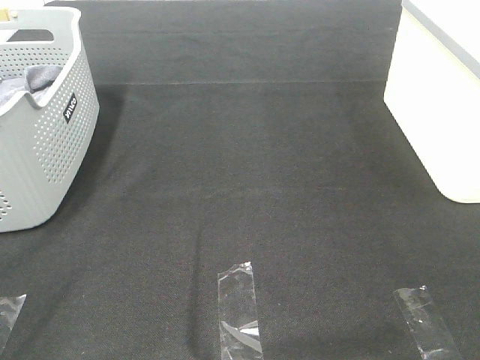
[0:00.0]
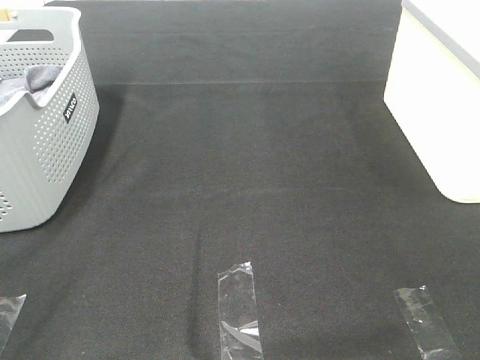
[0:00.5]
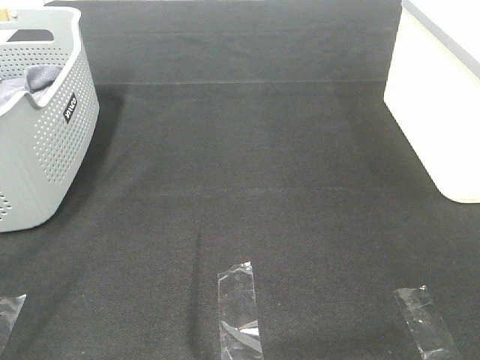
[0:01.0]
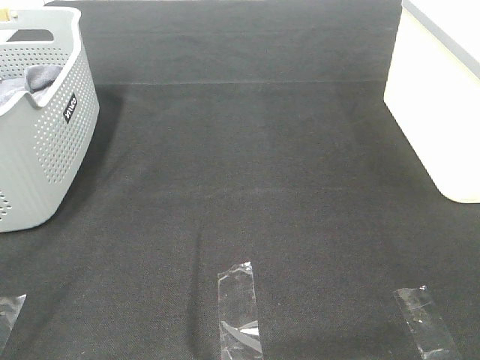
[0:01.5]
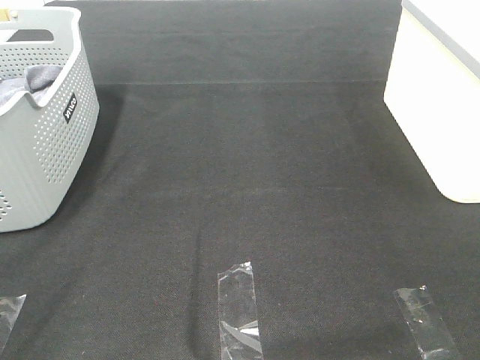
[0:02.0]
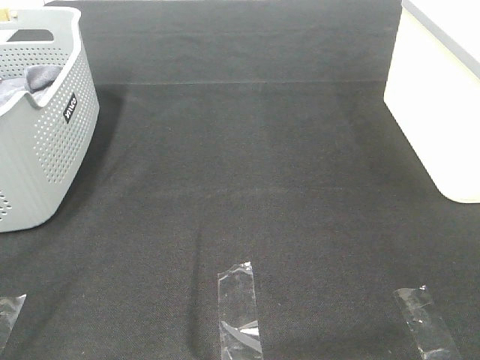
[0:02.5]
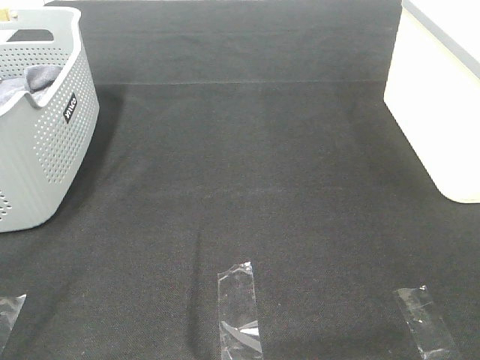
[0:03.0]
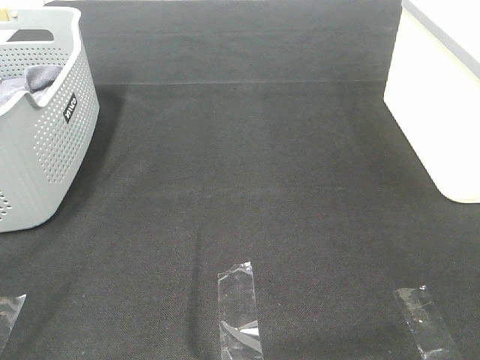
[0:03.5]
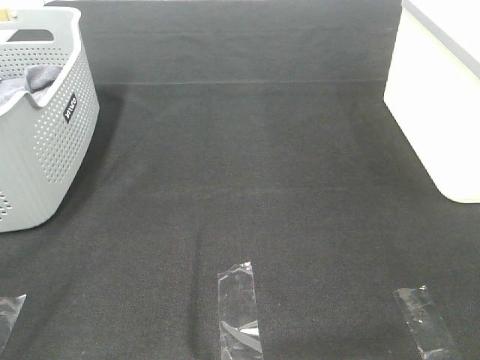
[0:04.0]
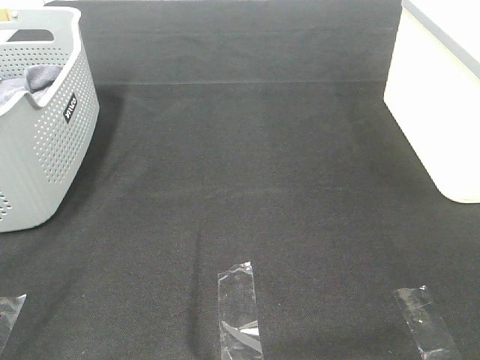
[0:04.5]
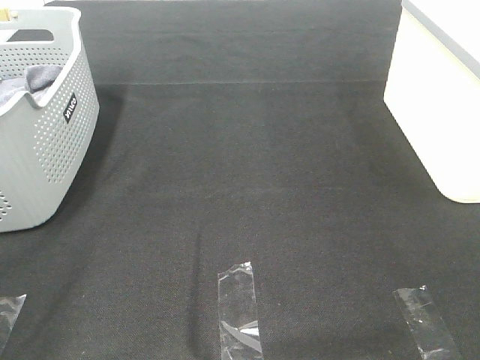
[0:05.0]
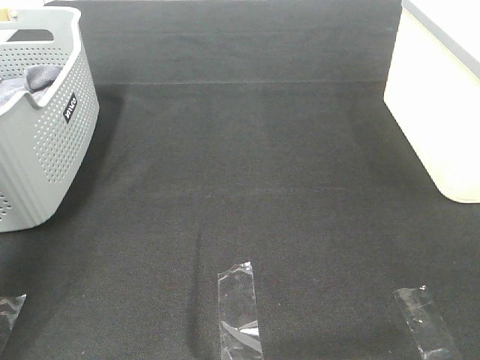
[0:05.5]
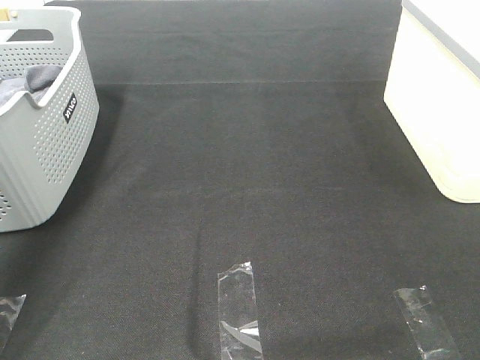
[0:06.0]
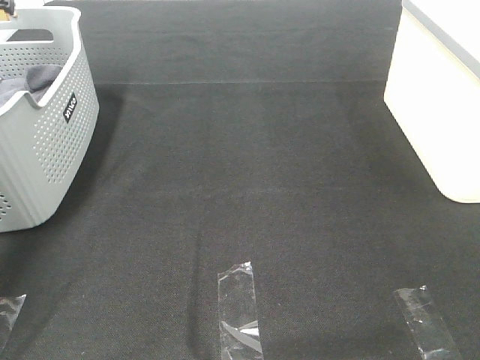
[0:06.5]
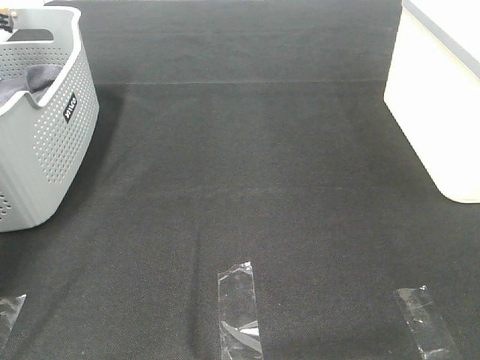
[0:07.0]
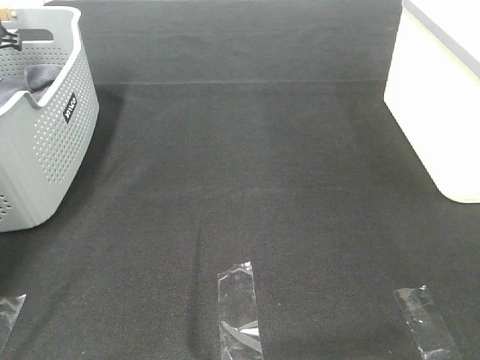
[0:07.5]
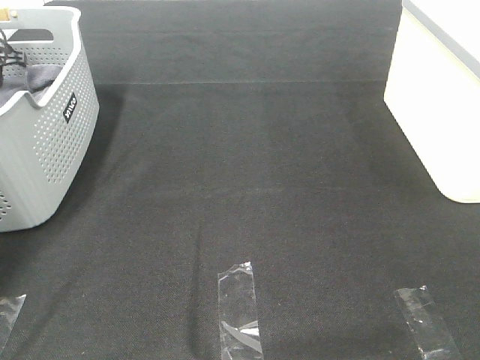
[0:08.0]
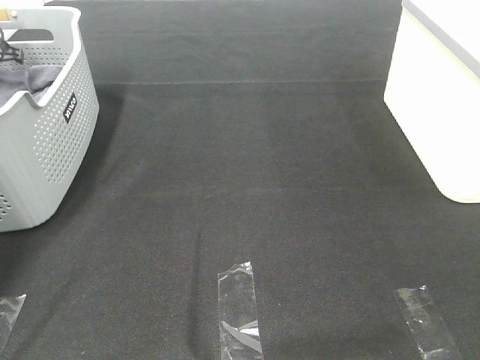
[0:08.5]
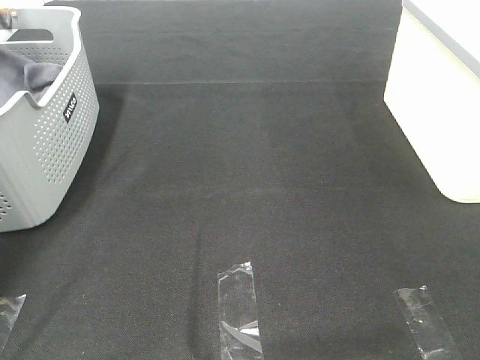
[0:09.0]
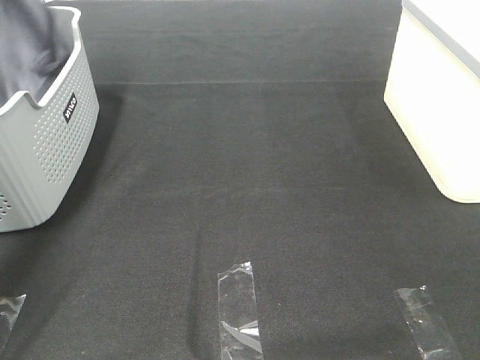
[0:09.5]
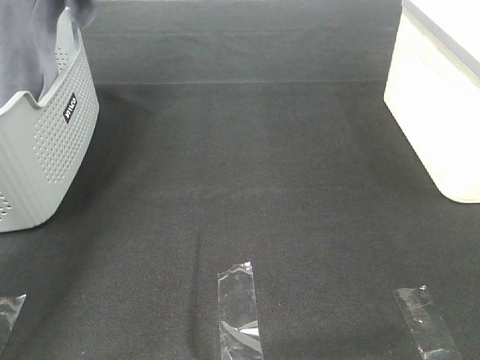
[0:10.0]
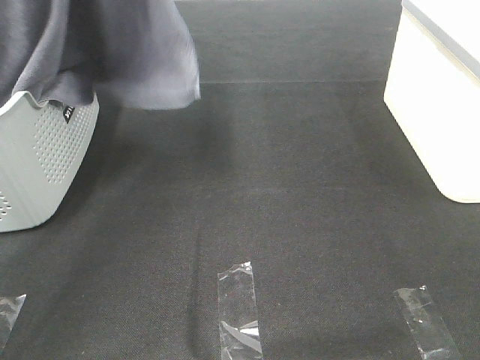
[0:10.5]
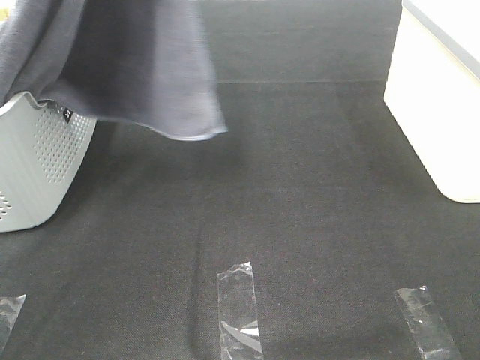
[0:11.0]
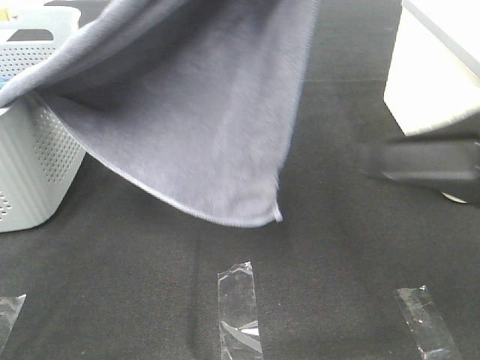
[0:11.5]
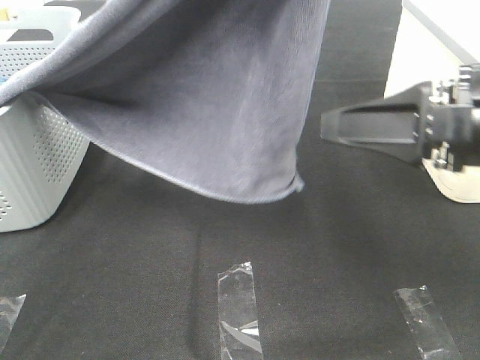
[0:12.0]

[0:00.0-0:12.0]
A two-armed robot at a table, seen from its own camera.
Task of the whole recording: Remove the towel and place it.
0:00.0 to 0:04.0: The two grippers keep their place.
0:04.0 to 0:06.0: The left gripper goes roughly 40 cm forward.
0:06.0 to 0:08.0: The left gripper heads downward, forward and to the left, covering roughly 25 cm.
0:08.0 to 0:10.0: The left gripper travels upward and to the right by some 35 cm, and closes its fingers.
0:10.0 to 0:12.0: The left gripper shifts about 30 cm to the right and backward. The right gripper heads forward, covering approximately 20 cm.

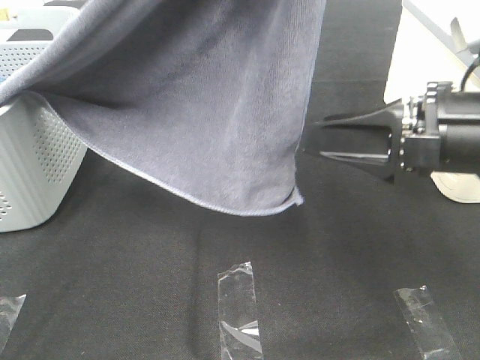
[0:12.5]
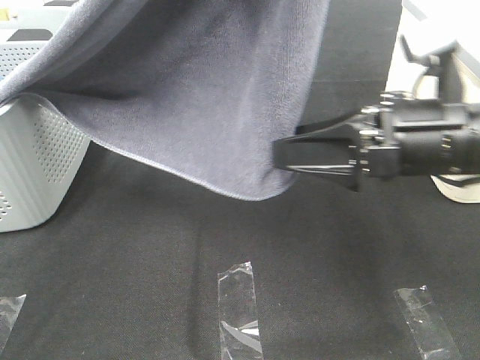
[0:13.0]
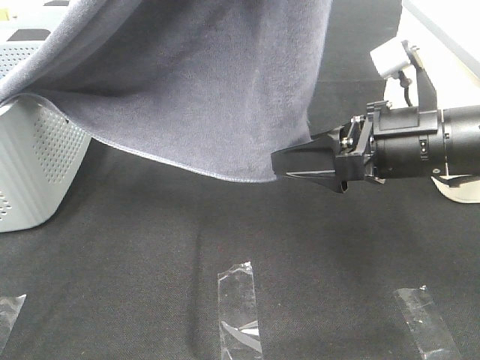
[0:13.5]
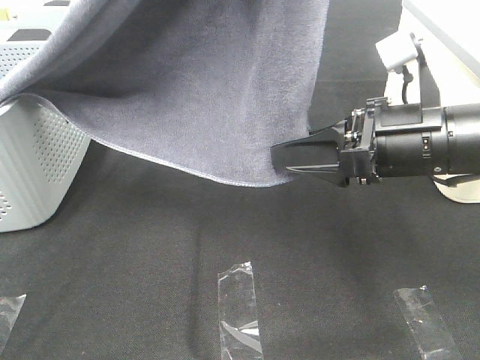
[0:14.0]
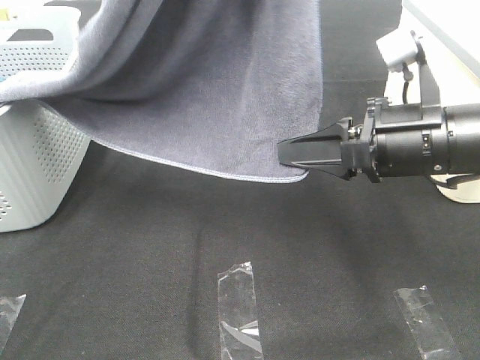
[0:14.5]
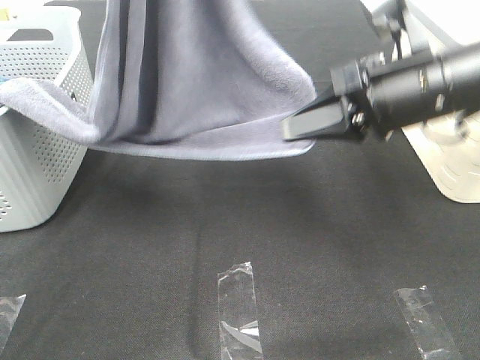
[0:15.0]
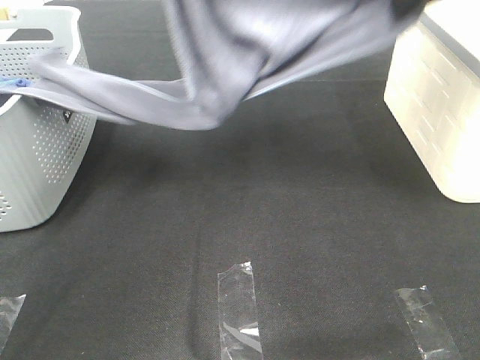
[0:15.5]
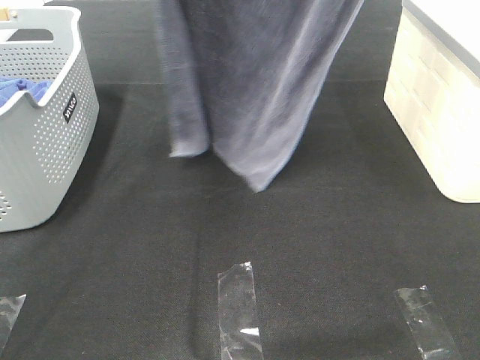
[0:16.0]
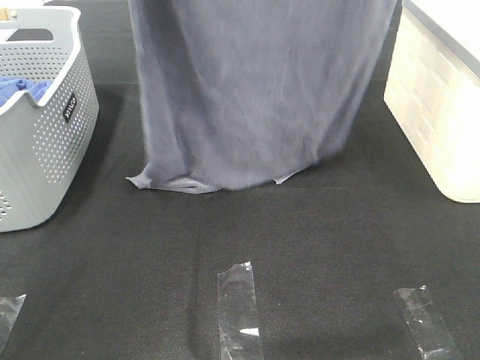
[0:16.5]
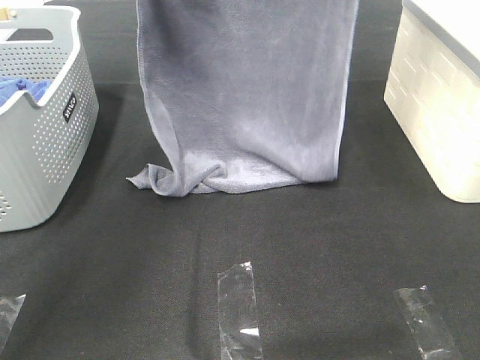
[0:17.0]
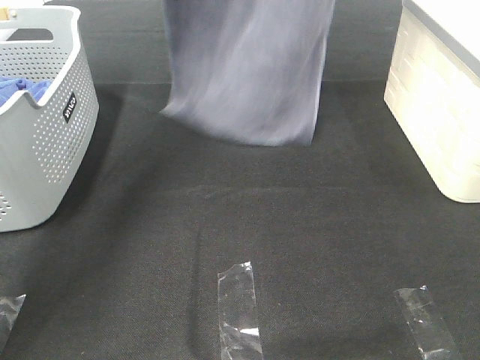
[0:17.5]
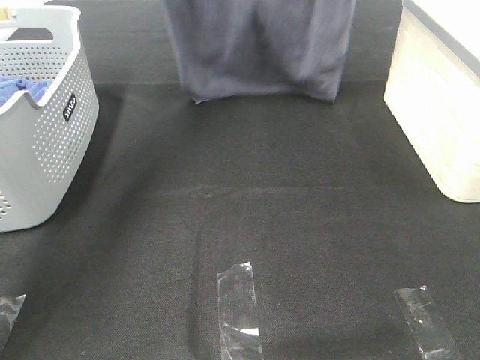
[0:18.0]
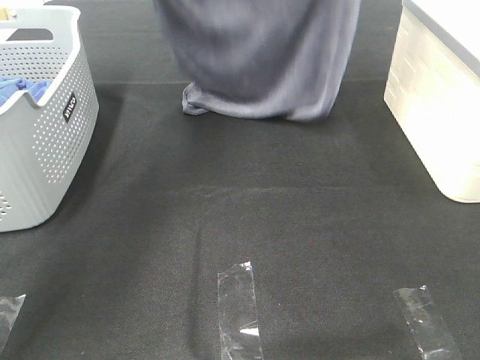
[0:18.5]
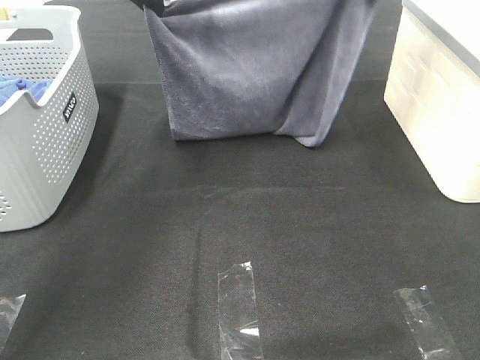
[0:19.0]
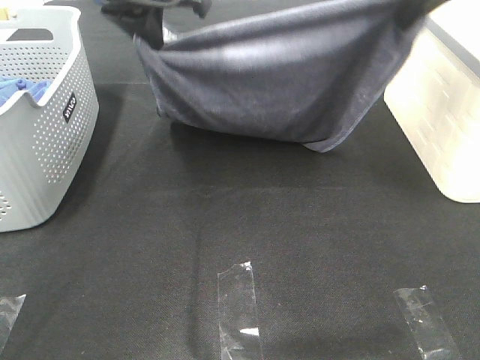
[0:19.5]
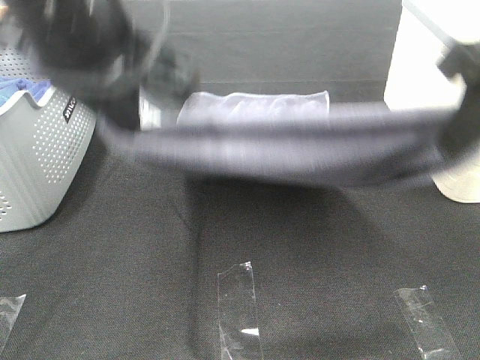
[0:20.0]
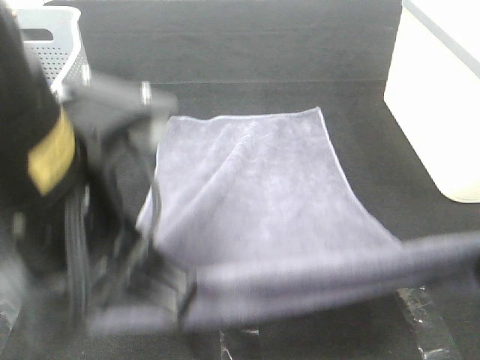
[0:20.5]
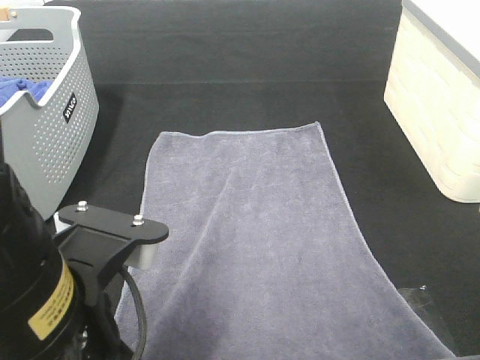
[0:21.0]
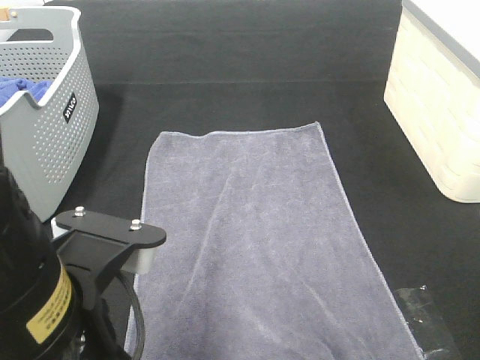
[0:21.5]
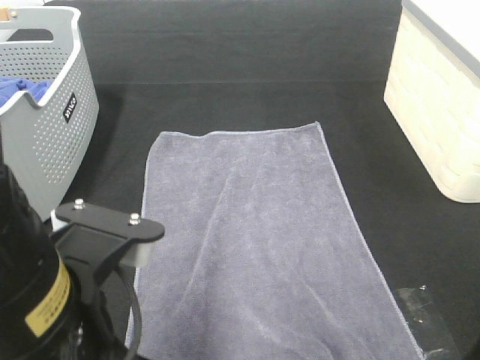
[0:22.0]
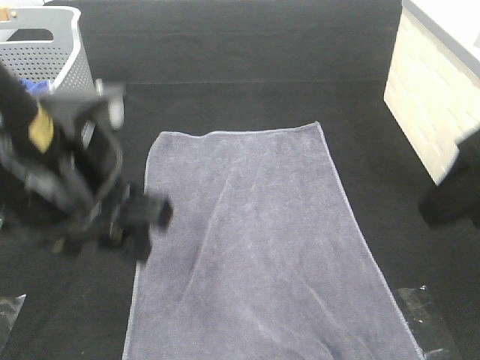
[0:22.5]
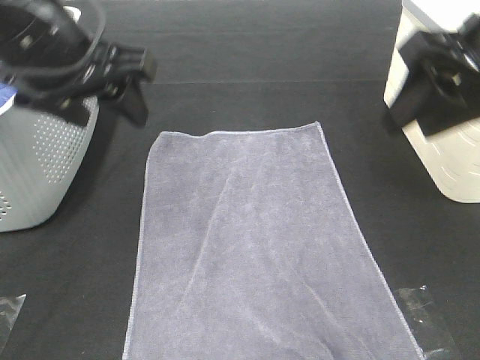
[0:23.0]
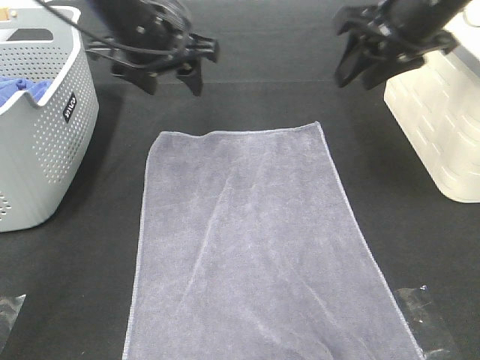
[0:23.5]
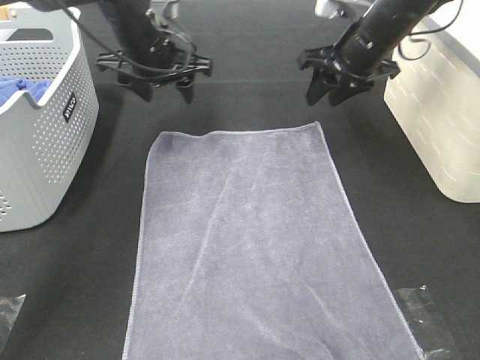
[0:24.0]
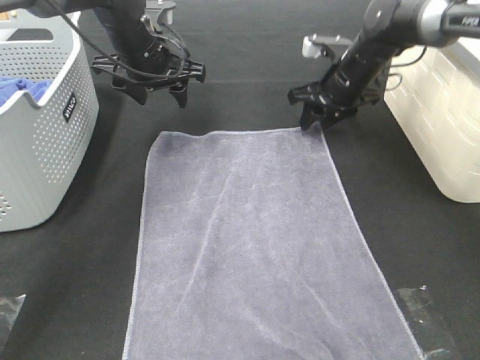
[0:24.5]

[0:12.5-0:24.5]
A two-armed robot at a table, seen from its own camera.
Task of the whole recording: Remove the towel and place it.
Step, 0:13.0 to 0:17.5: Left hand: spread the grey towel flat on the table.
Step, 0:13.0 to 0:17.5: Right hand: spread the grey towel flat on the table.
Step, 0:18.0 to 0:23.5: Left hand:adjust the gray towel.
Step, 0:18.0 to 0:23.5: Right hand:adjust the gray towel.
0:12.5 to 0:14.5: The right gripper closes.
0:14.5 to 0:16.5: The left gripper moves forward and backward over some 15 cm, changing direction 2 times; the right gripper moves upward and forward, some 30 cm.
0:16.5 to 0:18.5: The right gripper goes up and down, approximately 10 cm each way, reversing 2 times; the left gripper goes up and down, some 10 cm each way, reversing 2 times.
0:18.5 to 0:20.5: Both grippers travel together backward, about 35 cm.
0:20.5 to 0:22.5: The left gripper shifts approximately 5 cm forward, and opens up. The right gripper opens.
0:22.5 to 0:24.5: The left gripper heads forward, covering about 30 cm. Meanwhile the right gripper heads forward and downward, covering about 35 cm.

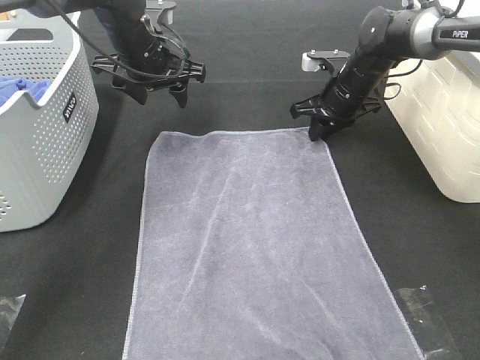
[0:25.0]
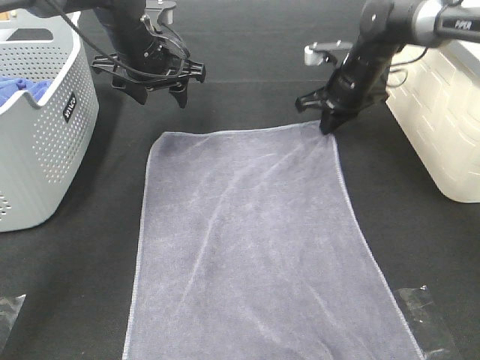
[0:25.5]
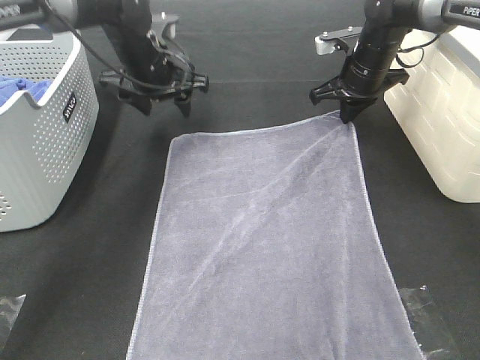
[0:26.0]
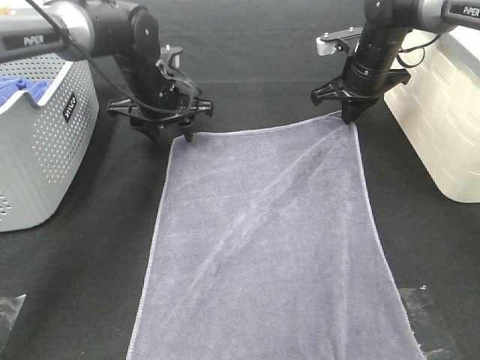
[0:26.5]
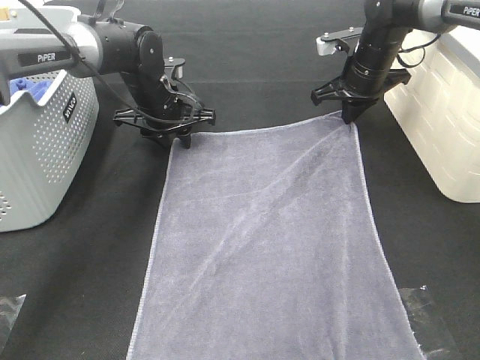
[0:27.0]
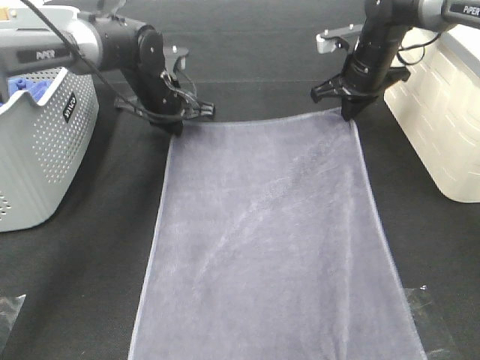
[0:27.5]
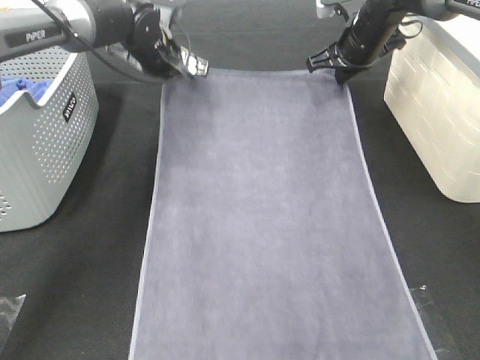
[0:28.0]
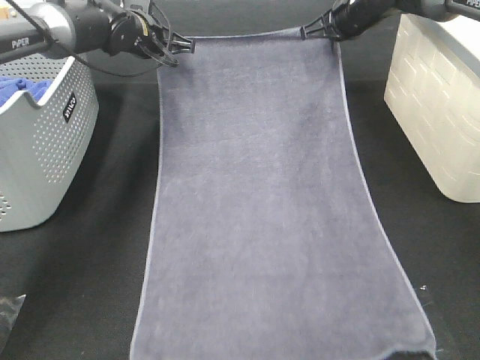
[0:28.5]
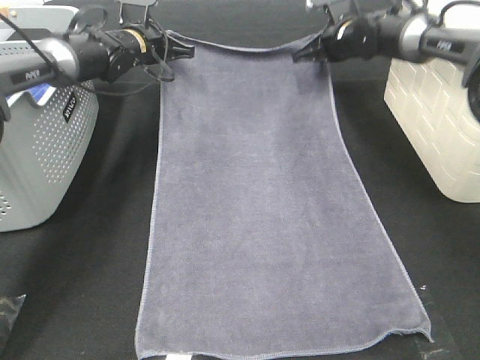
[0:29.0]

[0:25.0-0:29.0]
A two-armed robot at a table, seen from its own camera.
Task of the whole recording: Remove the towel and place it.
0:25.0 to 0:27.0: The left gripper moves downward, approximately 10 cm.
0:27.0 to 0:29.0: Both grippers move forward, roughly 10 cm. The left gripper closes up.
